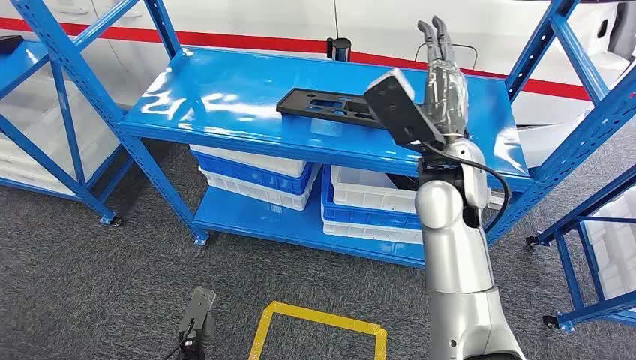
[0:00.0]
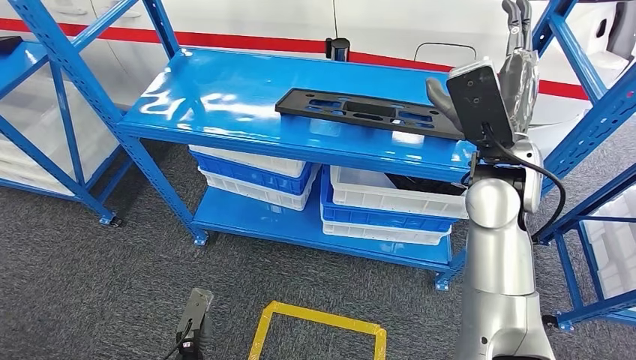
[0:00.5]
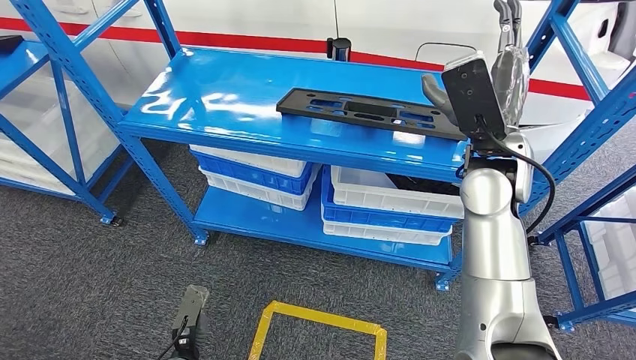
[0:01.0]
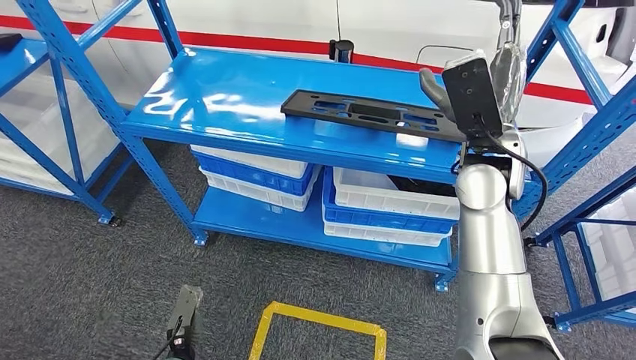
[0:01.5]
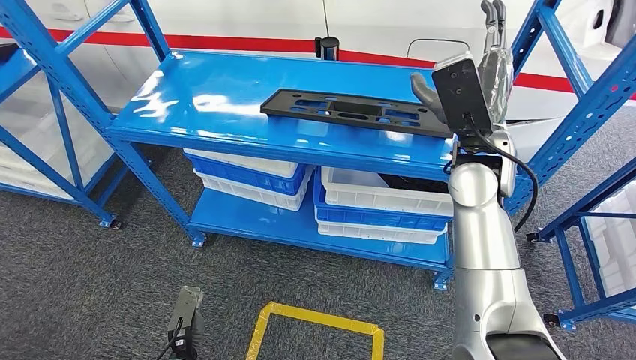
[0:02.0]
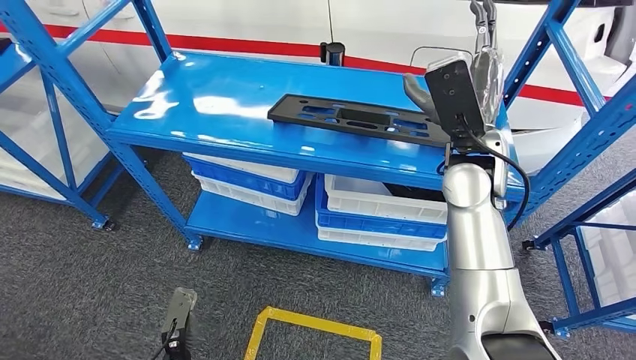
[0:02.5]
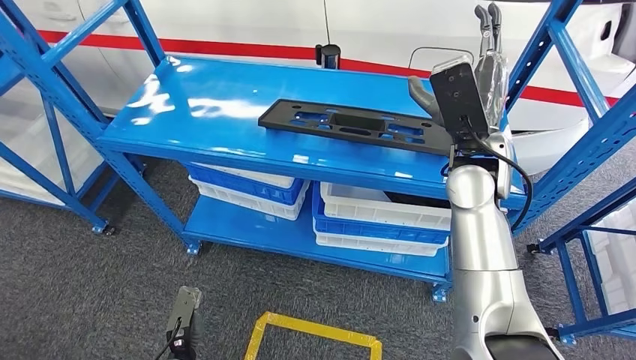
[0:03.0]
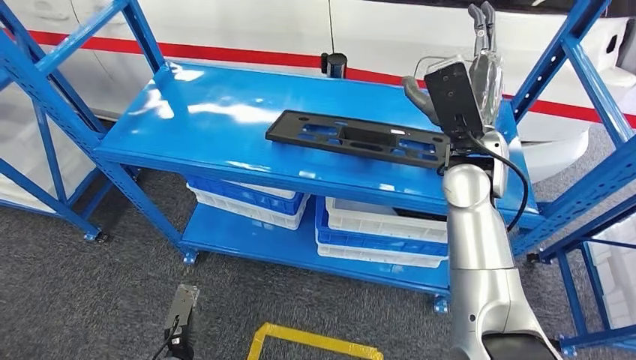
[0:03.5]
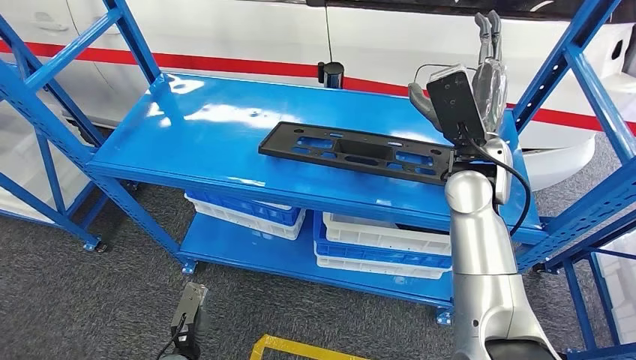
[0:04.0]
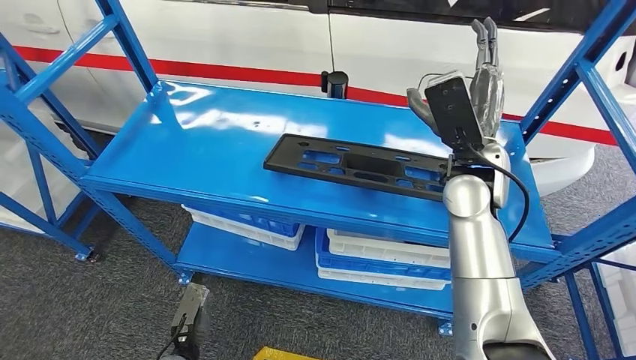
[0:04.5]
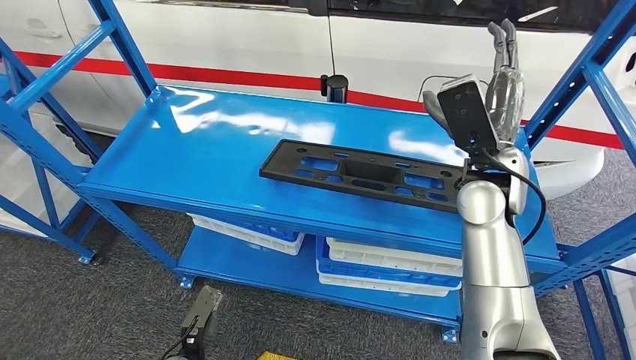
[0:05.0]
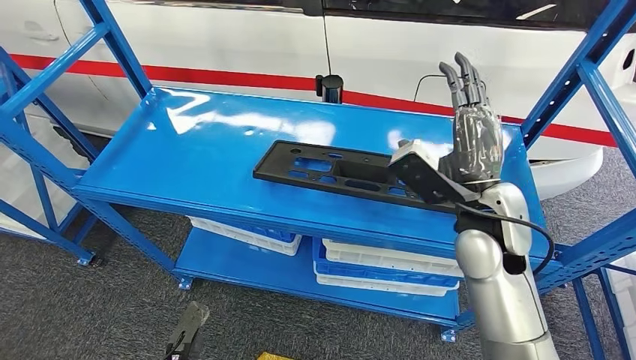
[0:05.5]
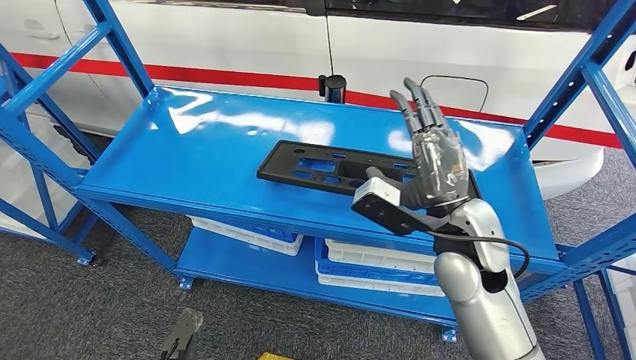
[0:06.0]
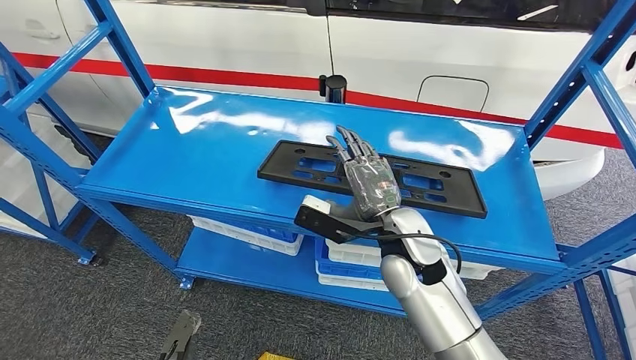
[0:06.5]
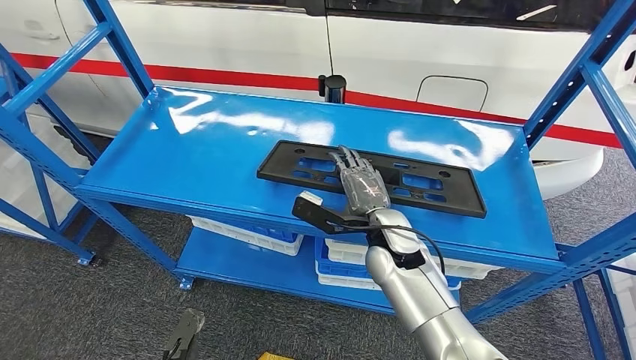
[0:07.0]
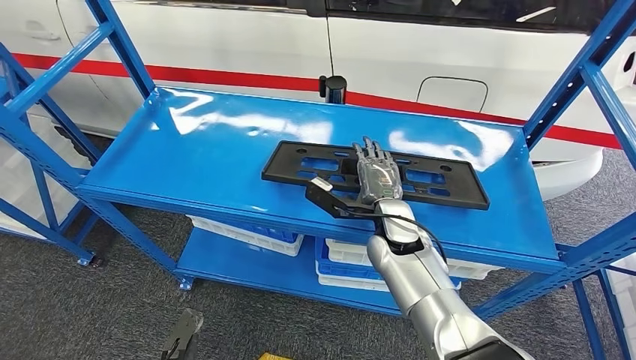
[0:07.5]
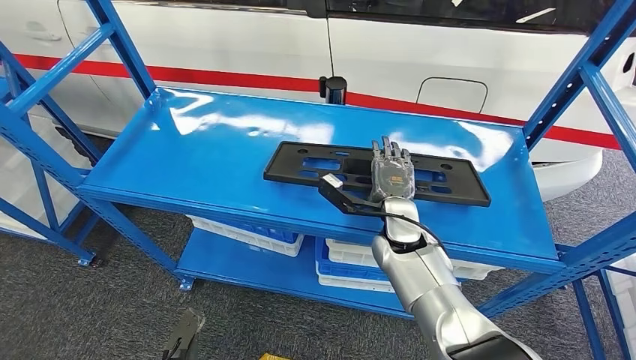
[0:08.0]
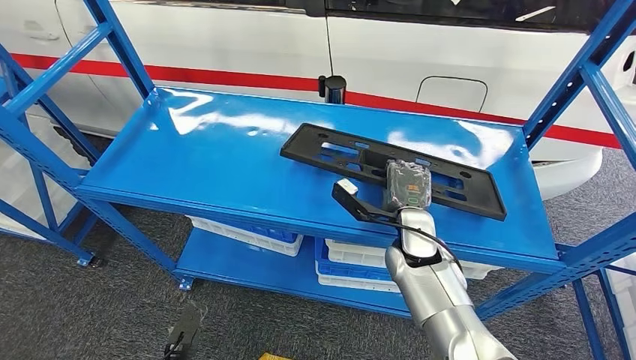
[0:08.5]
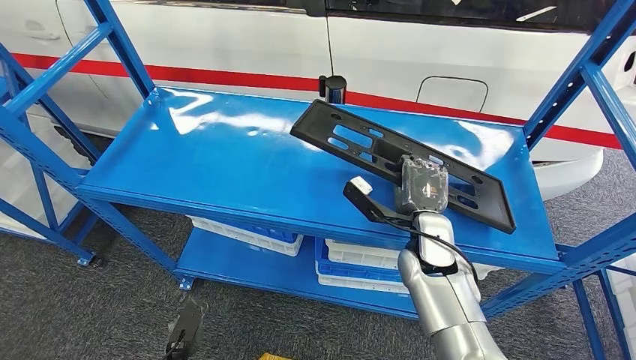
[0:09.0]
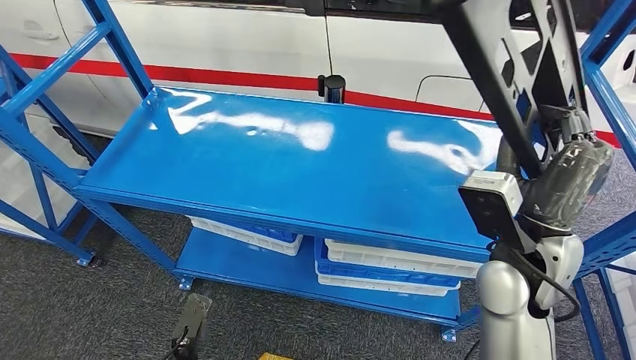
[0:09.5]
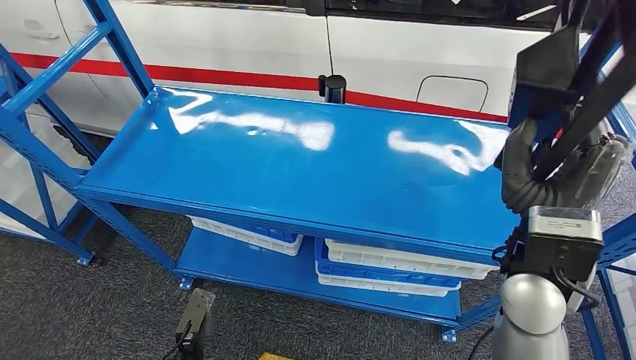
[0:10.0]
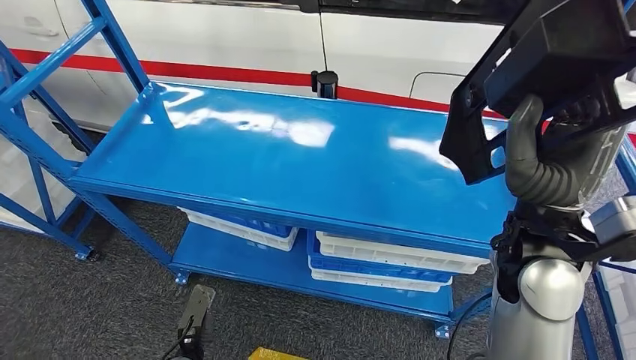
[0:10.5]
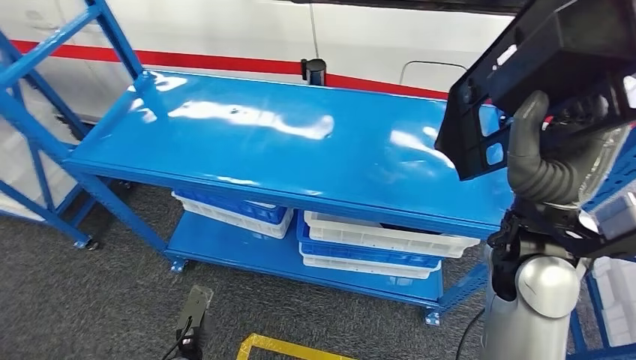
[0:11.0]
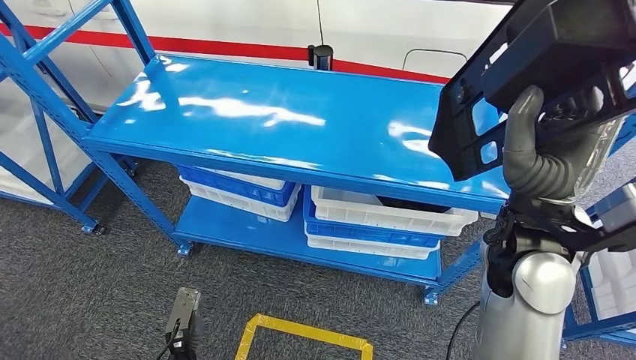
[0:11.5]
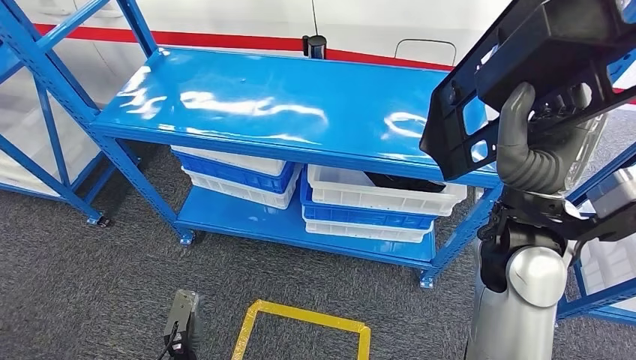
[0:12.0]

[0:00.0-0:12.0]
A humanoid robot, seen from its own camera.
0:06.0 to 0:08.0: The right hand goes roughly 15 cm downward and forward.

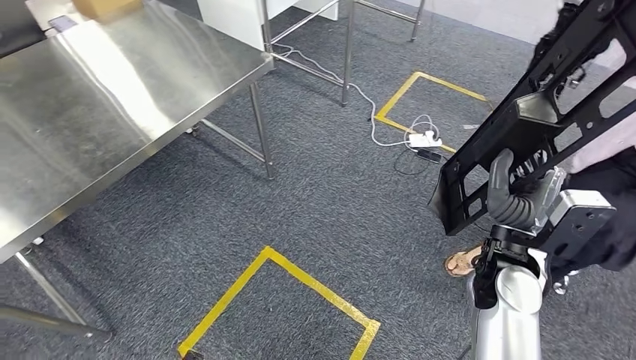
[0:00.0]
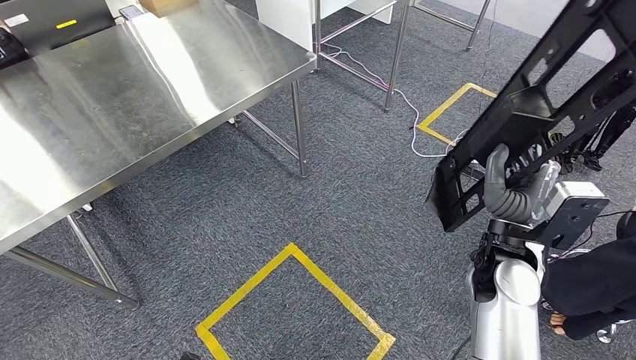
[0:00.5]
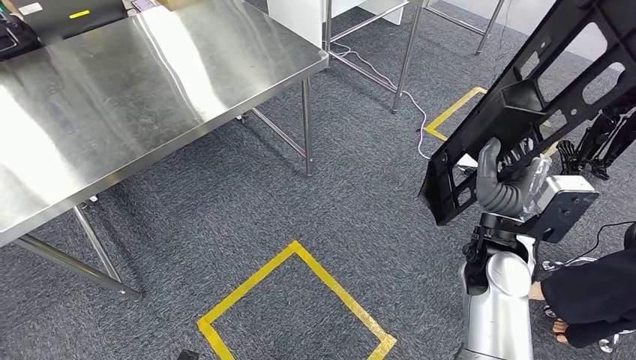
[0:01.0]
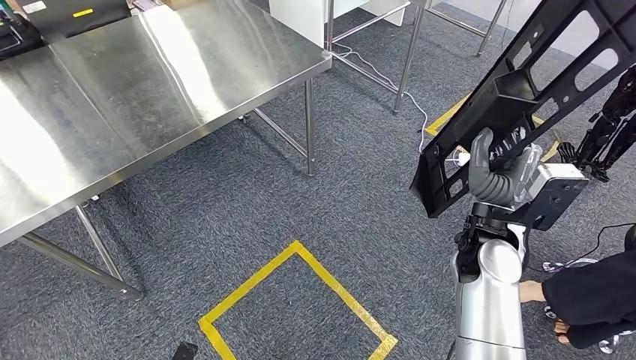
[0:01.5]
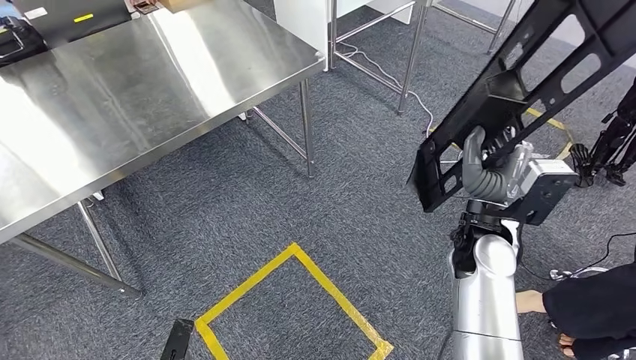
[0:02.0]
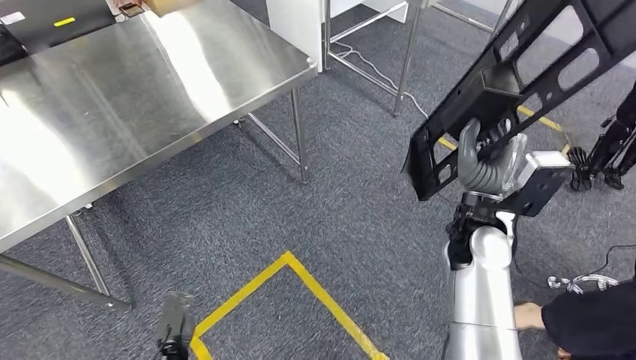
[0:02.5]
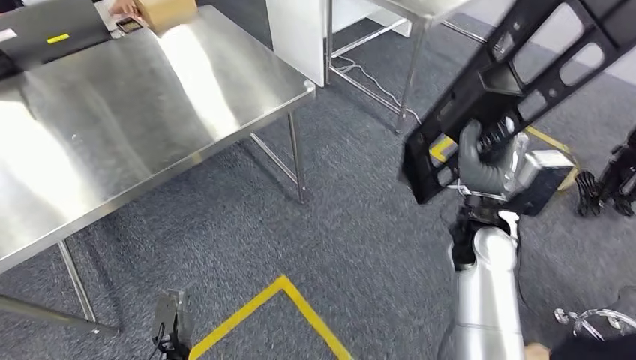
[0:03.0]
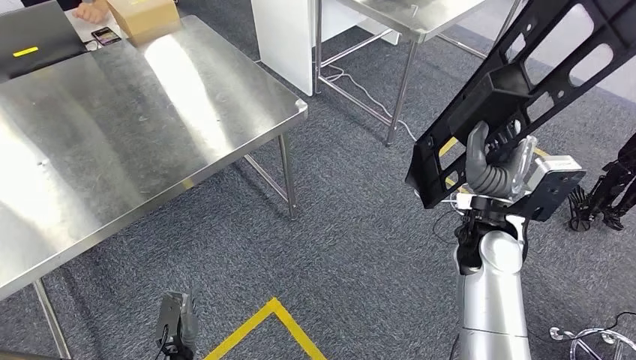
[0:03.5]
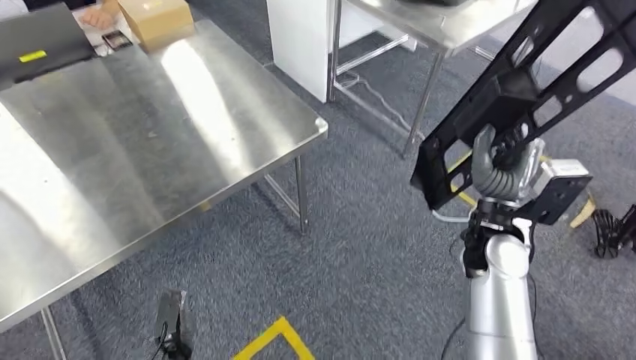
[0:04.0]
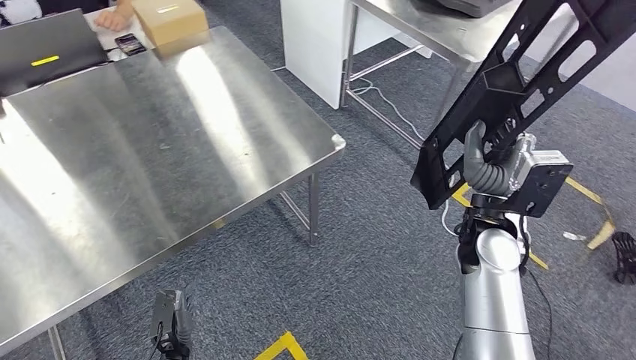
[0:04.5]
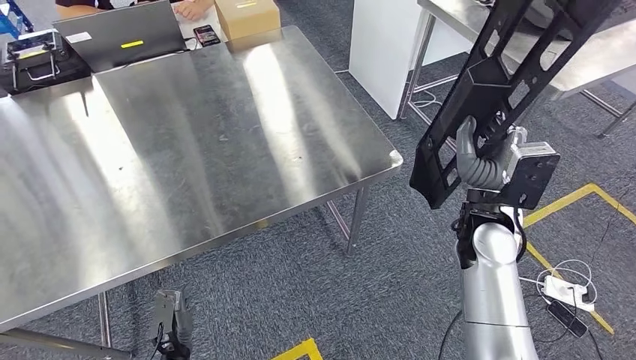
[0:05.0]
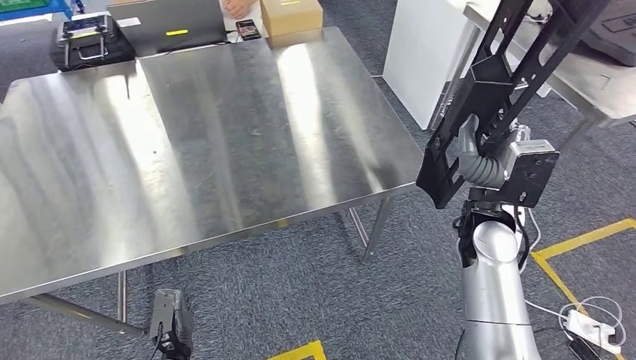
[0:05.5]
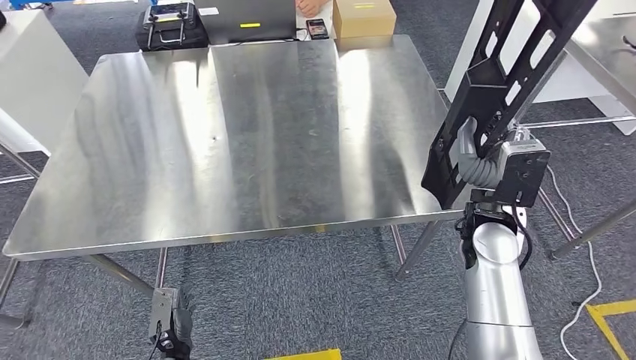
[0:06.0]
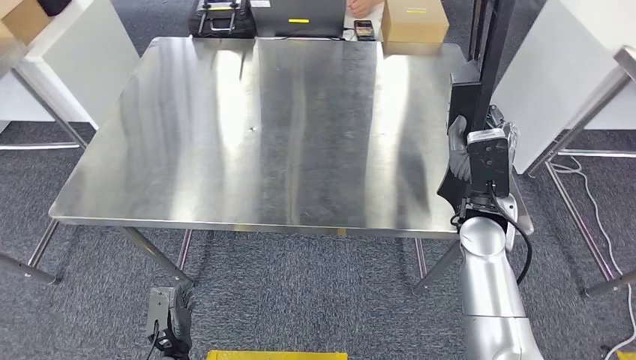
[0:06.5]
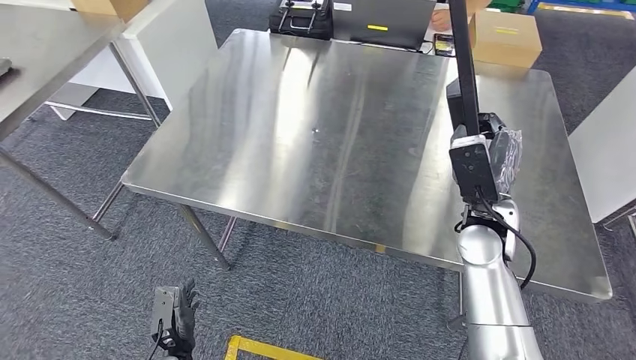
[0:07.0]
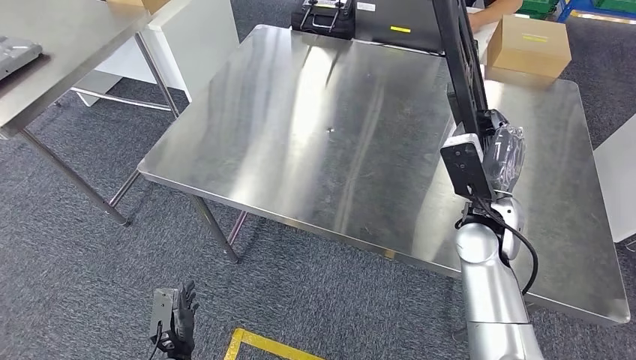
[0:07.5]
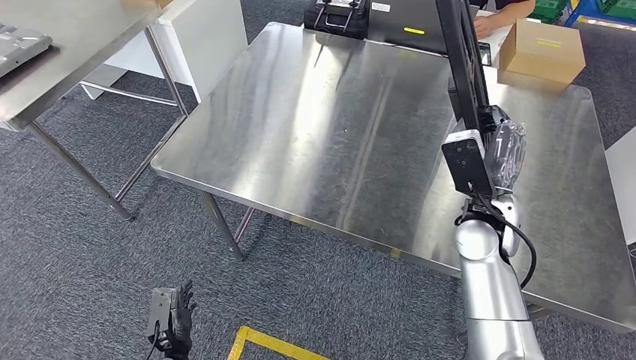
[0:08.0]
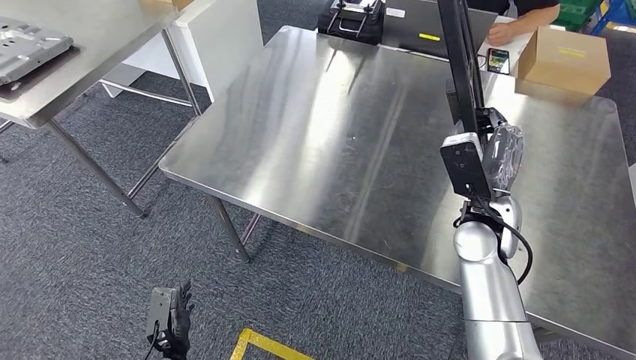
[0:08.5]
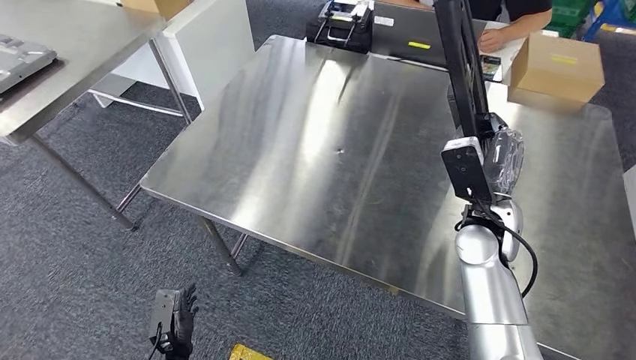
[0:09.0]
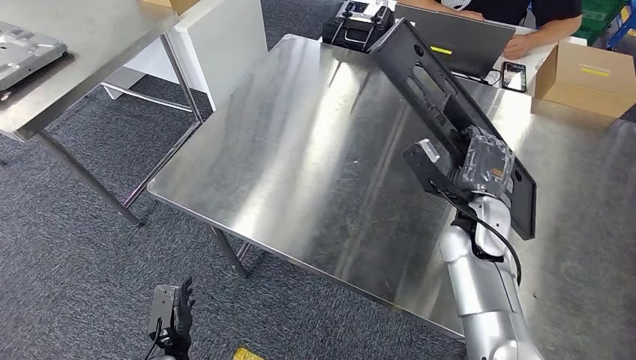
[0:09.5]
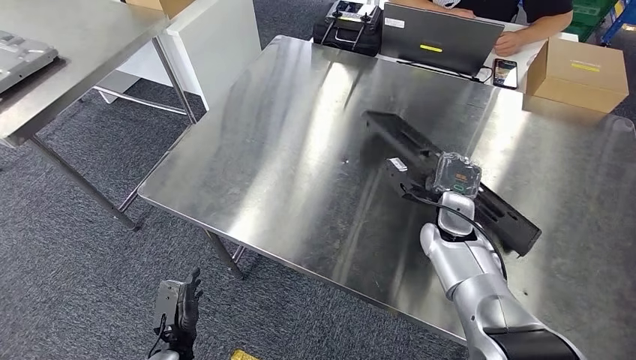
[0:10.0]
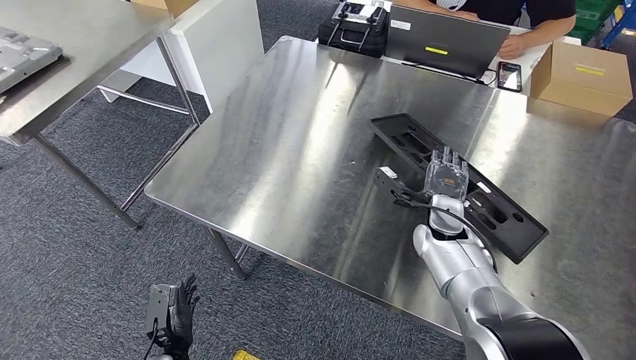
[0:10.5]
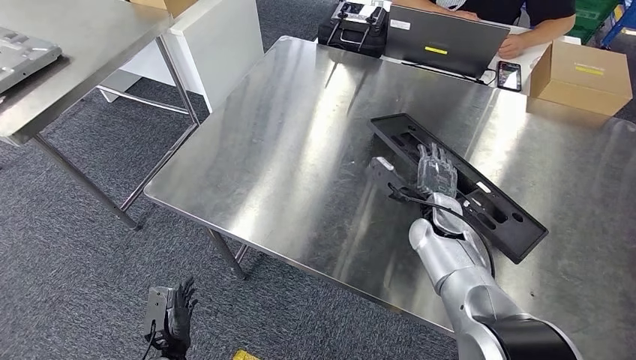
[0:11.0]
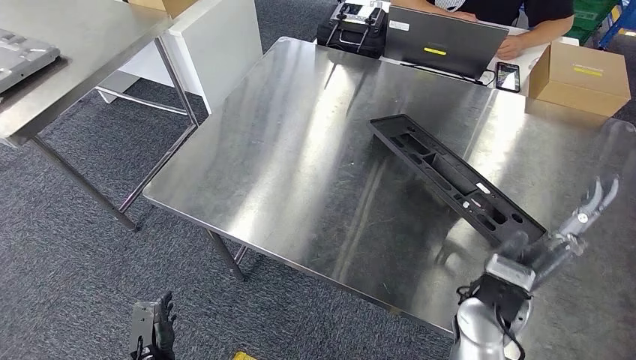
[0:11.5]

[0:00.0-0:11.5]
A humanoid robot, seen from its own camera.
Step, 0:00.0 to 0:06.5: Move the large material to the workbench.
